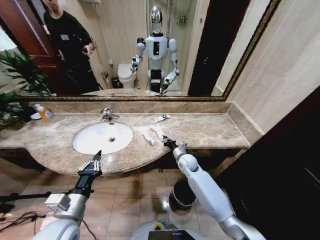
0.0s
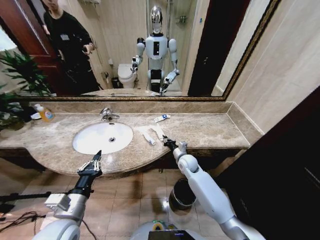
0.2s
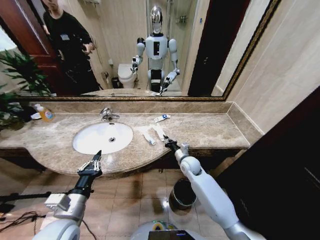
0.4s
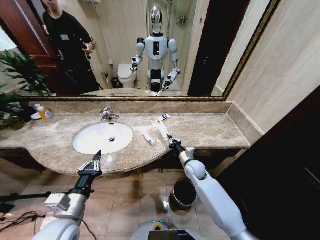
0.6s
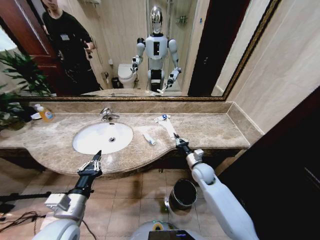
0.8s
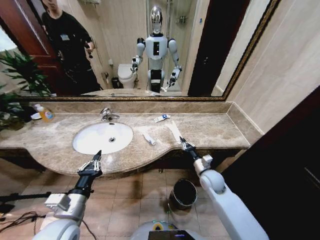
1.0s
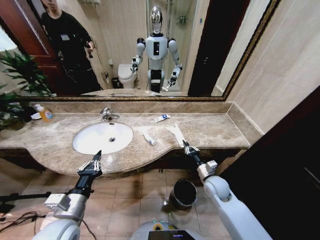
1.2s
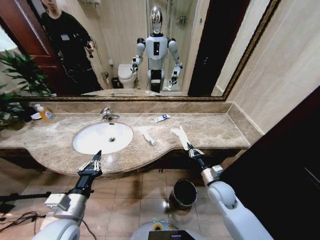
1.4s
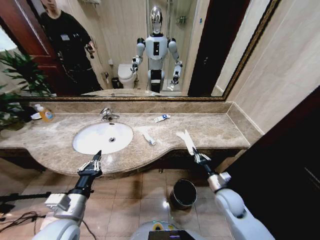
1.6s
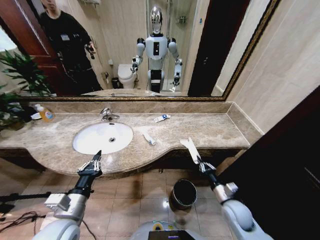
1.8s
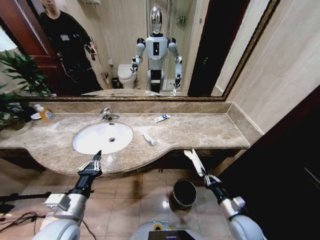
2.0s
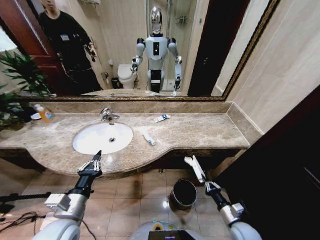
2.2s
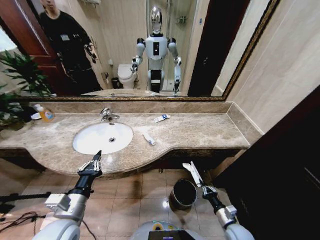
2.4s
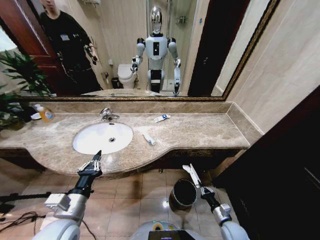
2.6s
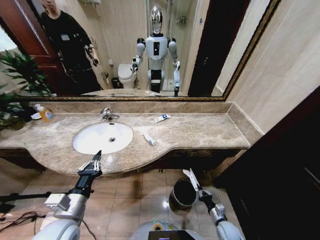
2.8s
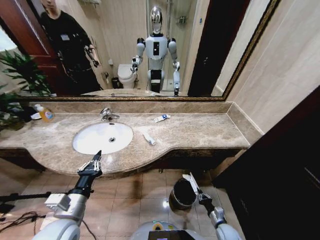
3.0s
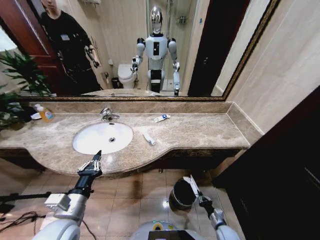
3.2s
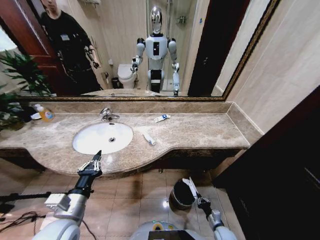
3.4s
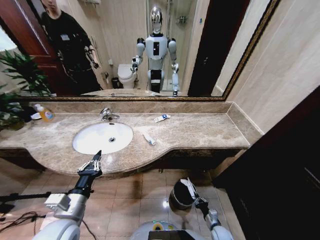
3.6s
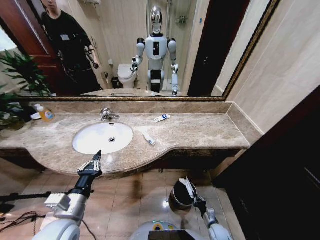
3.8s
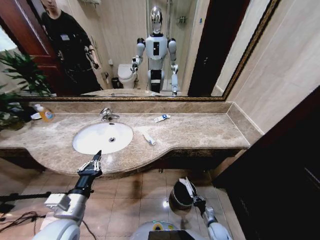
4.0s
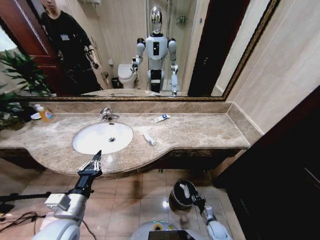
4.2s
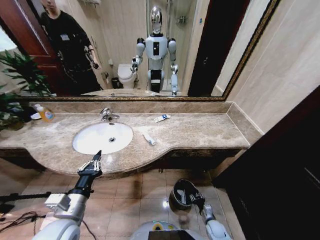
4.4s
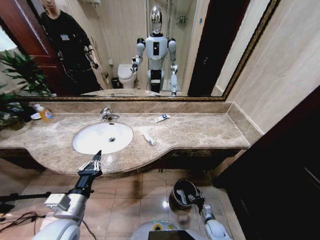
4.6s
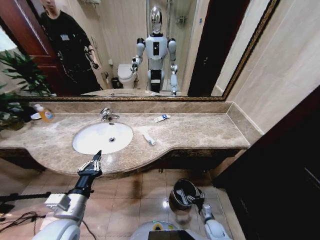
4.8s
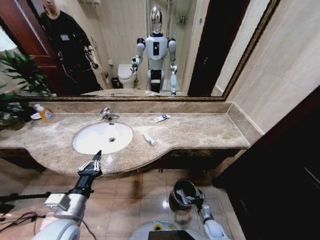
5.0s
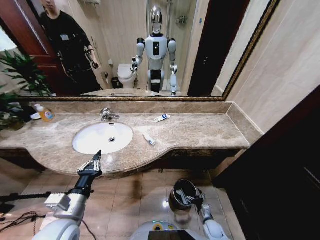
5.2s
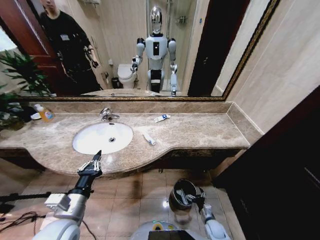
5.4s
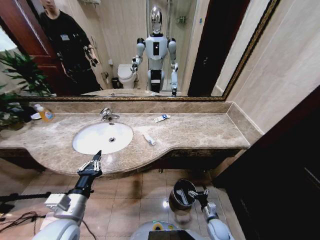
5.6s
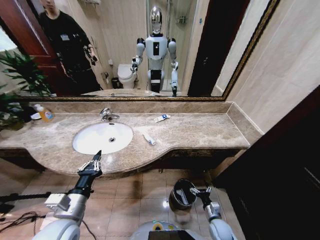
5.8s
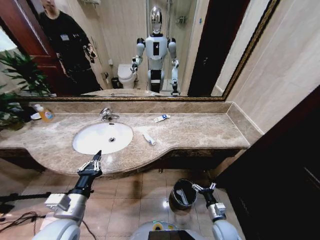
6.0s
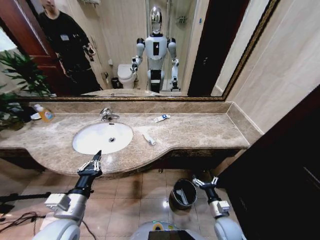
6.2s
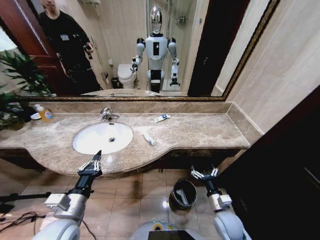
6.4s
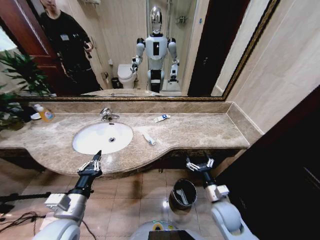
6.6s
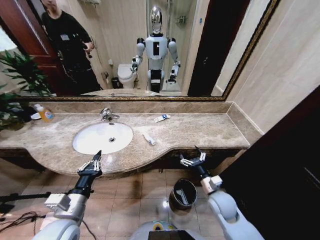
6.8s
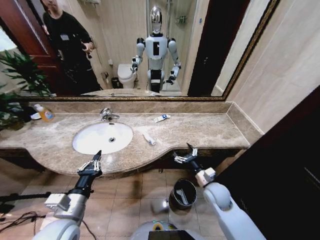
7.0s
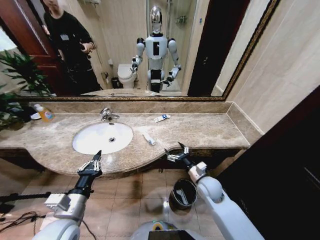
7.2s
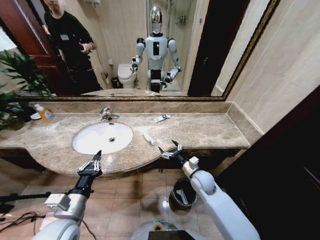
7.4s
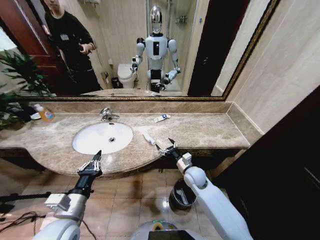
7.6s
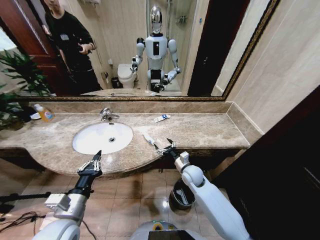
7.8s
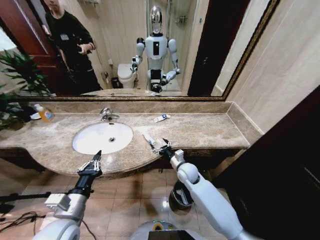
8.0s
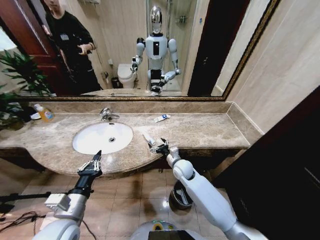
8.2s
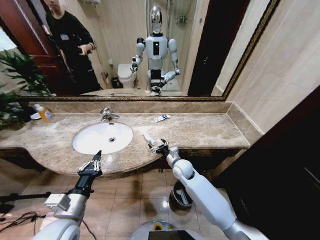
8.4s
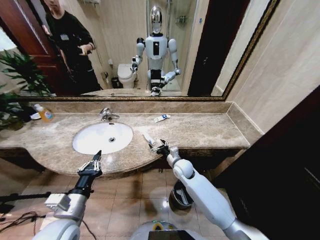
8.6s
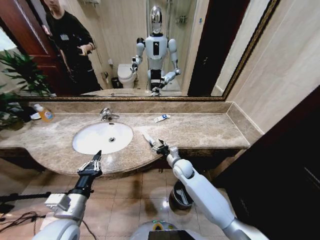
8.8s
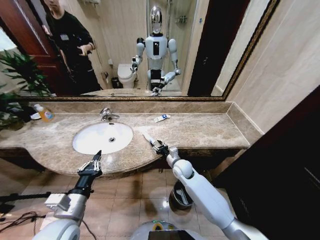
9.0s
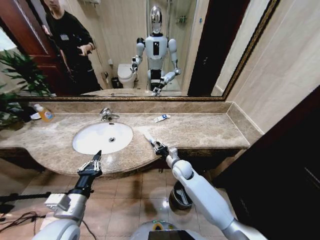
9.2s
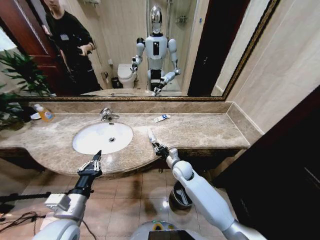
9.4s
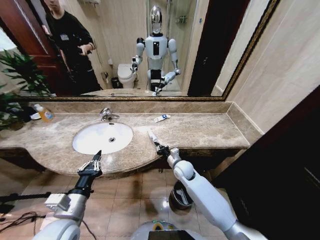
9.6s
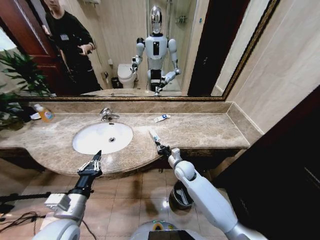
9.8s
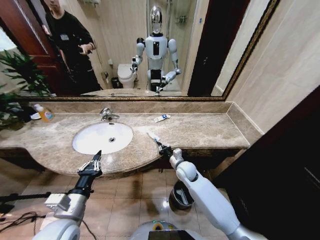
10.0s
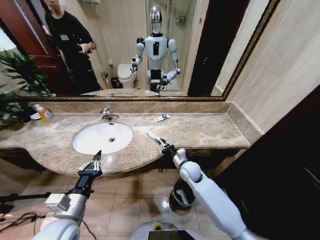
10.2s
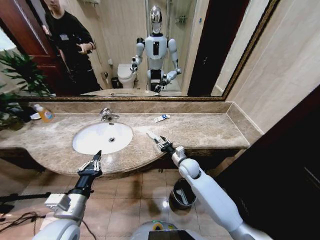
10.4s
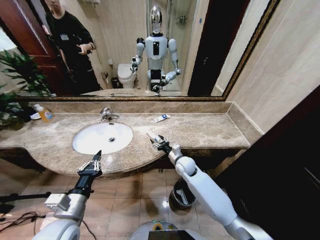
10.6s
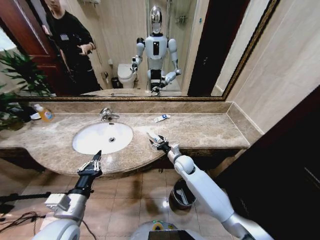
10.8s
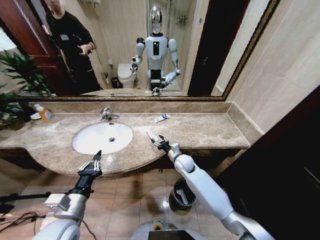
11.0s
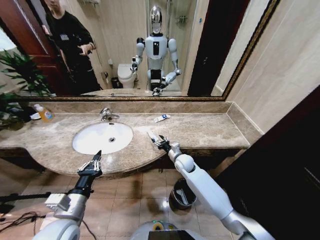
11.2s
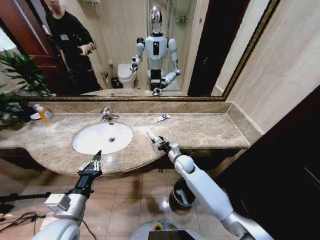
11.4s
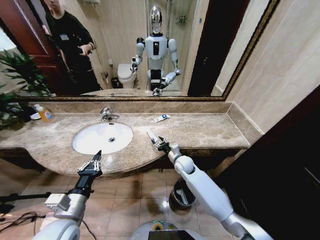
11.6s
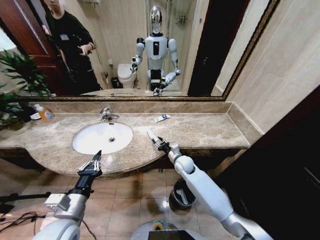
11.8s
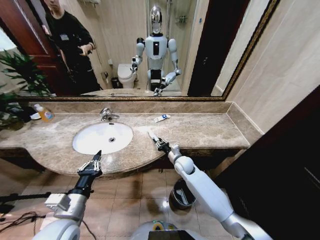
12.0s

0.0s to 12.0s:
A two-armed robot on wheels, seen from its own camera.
Task of the whole recording: Pick up the trash from the sink and place it in the trash bin.
0.0s to 1.6s: The right gripper travels backward and to the right by approximately 20 cm.
1.6s to 3.0s: The right gripper moves downward and backward, approximately 25 cm.
3.0s to 4.4s: The right gripper moves about 5 cm, and opens.
4.4s to 6.0s: The right gripper moves upward, approximately 15 cm, and opens its fingers.
6.0s to 7.6s: The right gripper travels forward, upward and to the left by approximately 25 cm.
7.6s to 9.0s: The right gripper moves to the left, some 5 cm, and closes.
9.0s to 10.4s: The right gripper closes, then opens again.
10.4s to 12.0s: The grippers make only small movements.

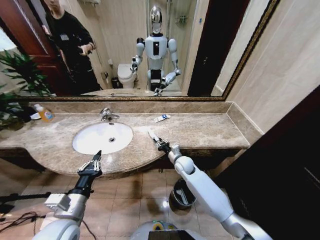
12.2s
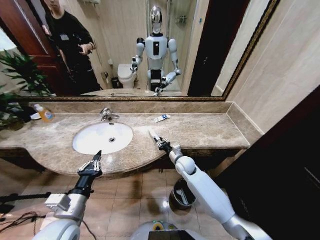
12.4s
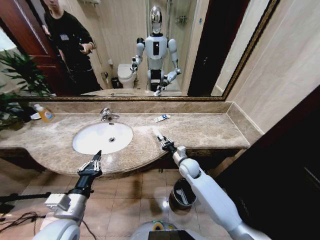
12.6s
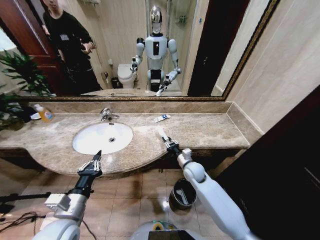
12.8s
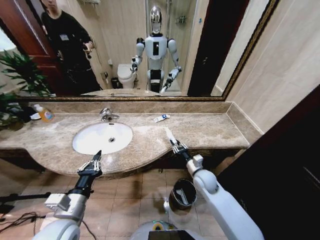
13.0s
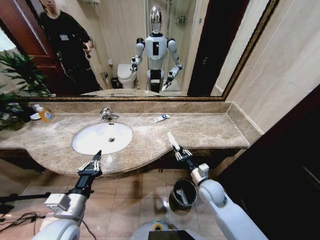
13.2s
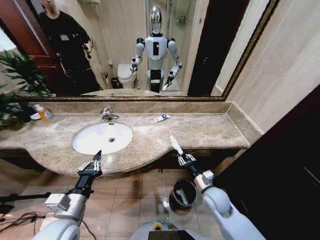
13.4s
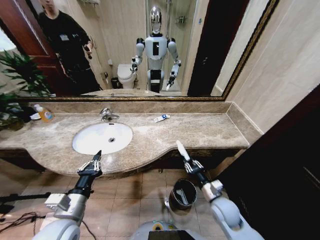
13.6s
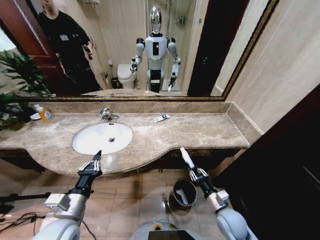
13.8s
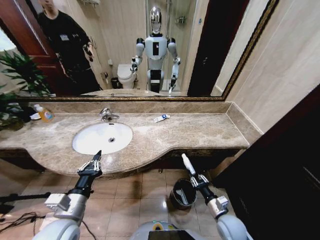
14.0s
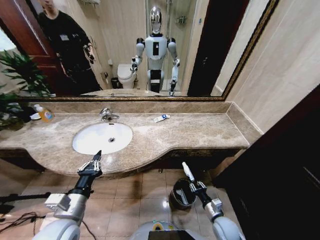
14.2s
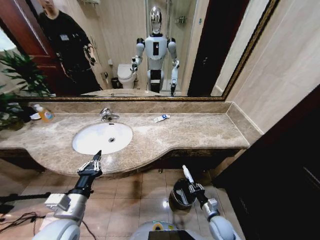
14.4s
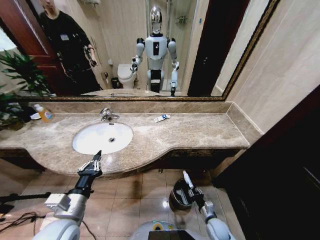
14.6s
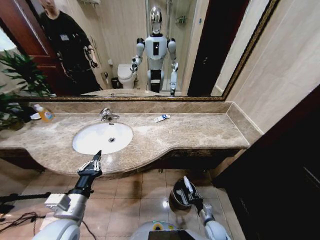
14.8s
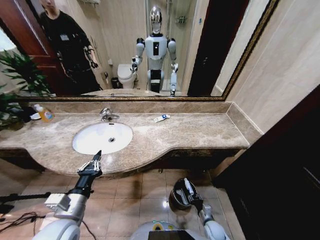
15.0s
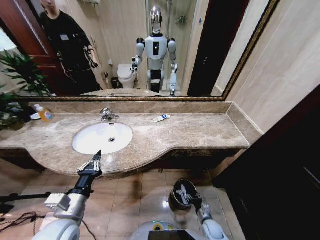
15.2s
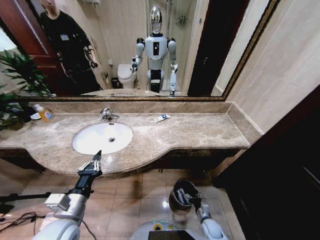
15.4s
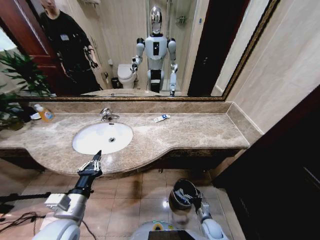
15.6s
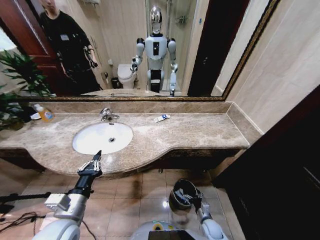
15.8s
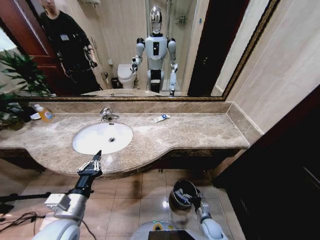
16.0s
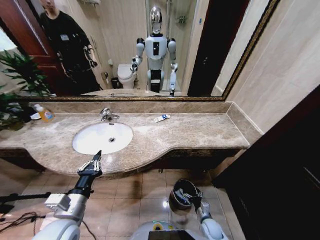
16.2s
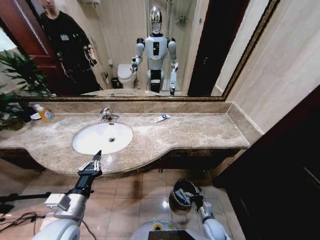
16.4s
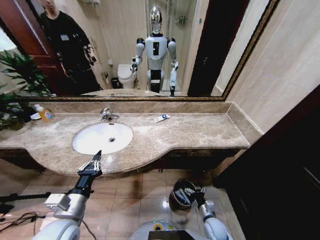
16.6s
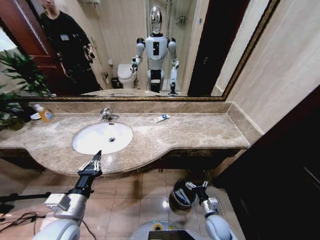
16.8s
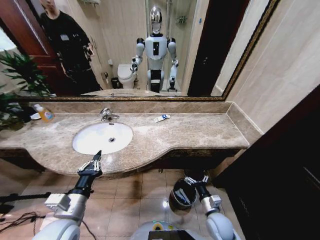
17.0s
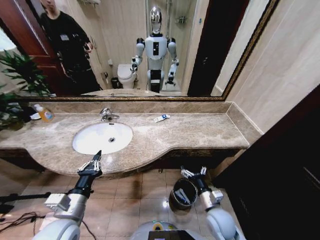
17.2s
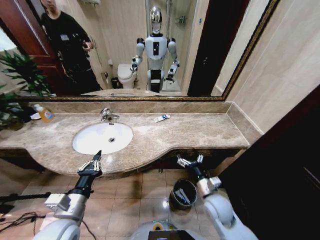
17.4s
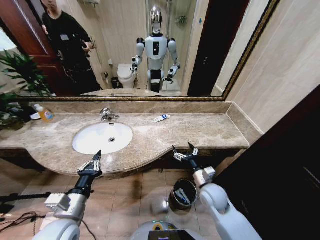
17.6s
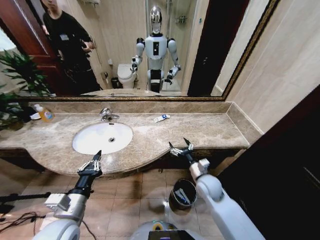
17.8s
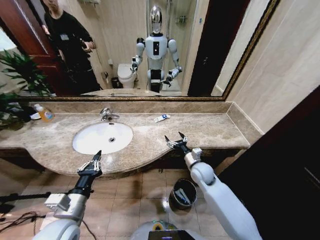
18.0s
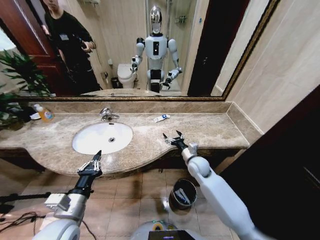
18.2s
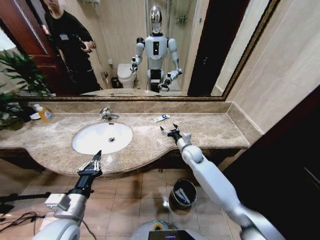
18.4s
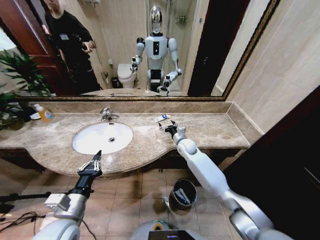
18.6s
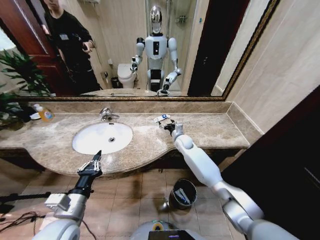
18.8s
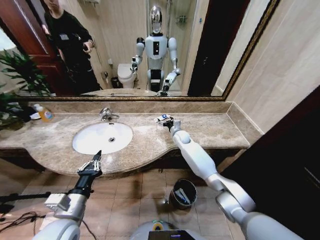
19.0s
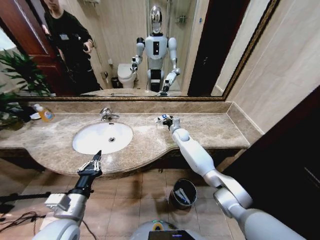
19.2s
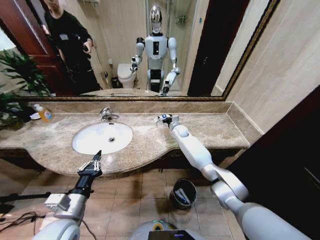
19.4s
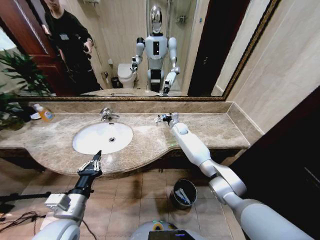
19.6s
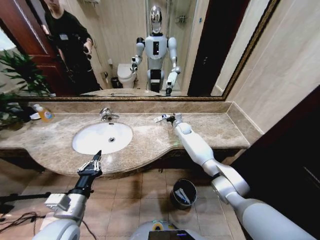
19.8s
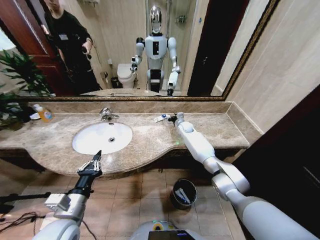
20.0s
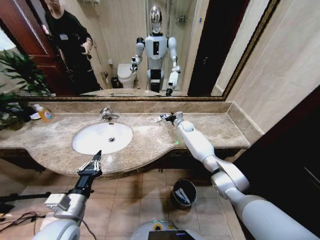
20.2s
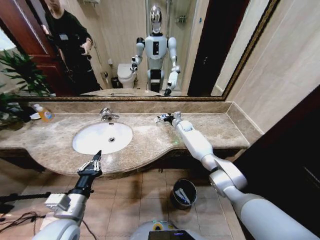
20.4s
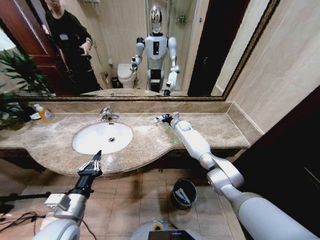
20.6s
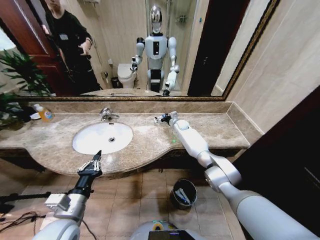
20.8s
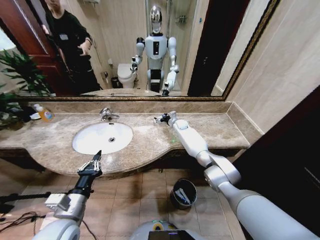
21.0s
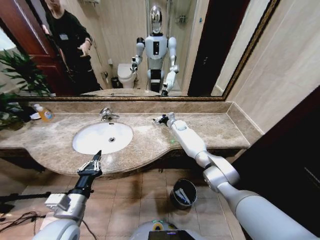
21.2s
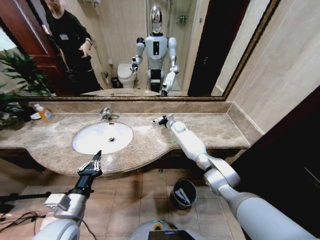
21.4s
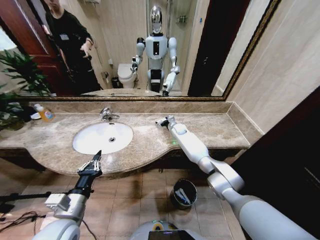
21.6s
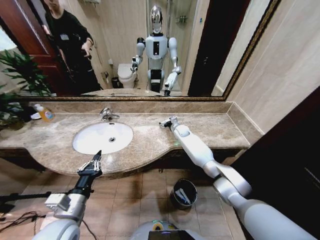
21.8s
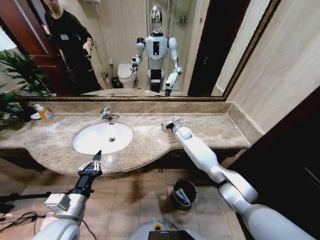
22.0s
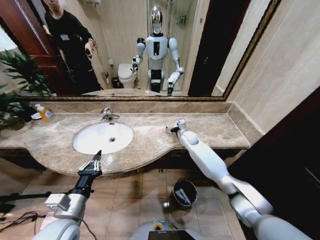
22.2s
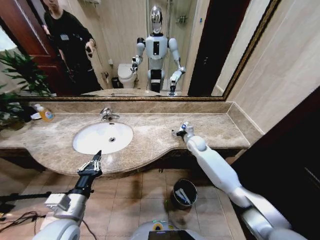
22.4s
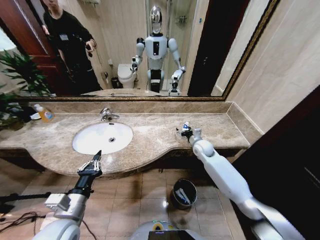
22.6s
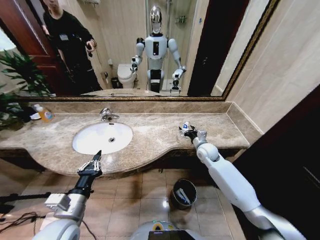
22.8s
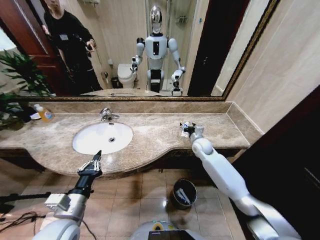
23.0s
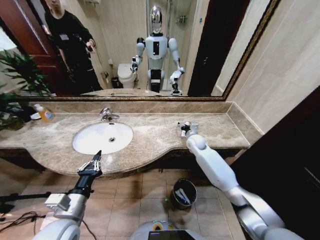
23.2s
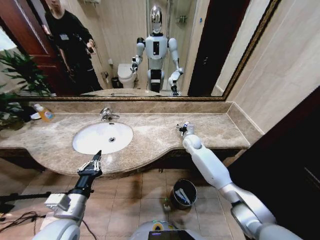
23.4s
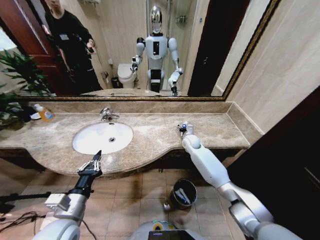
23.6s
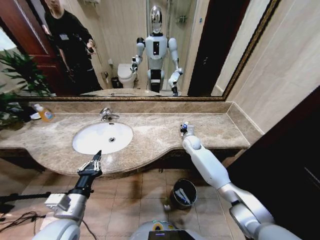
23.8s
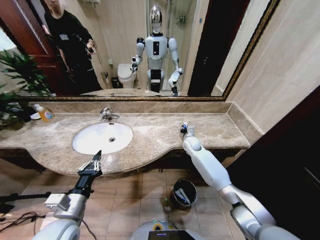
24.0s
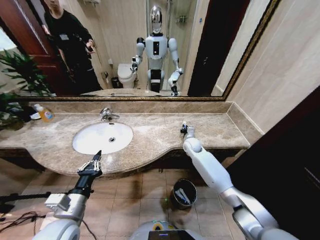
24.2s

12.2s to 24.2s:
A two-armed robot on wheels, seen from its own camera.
Task of the whole recording: Pick up the trash from the sink and place it in the trash bin.
12.2s to 13.8s: The right gripper is displaced backward and to the right by some 25 cm.
13.8s to 15.2s: The right gripper is displaced downward by about 20 cm.
15.2s to 16.6s: The right gripper travels upward by some 5 cm, and opens up.
16.6s to 18.2s: The right gripper goes roughly 30 cm upward and forward.
18.2s to 19.8s: The right gripper goes approximately 25 cm forward.
19.8s to 21.2s: The grippers move only a little.
21.2s to 22.6s: The right gripper moves backward and to the right, roughly 20 cm.
22.6s to 24.2s: The right gripper goes roughly 5 cm forward, and closes.
